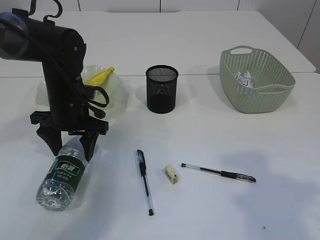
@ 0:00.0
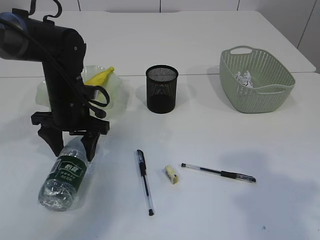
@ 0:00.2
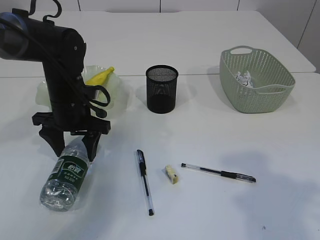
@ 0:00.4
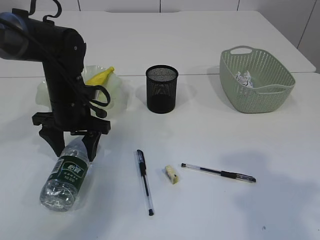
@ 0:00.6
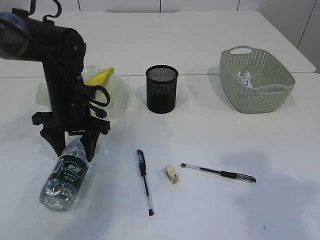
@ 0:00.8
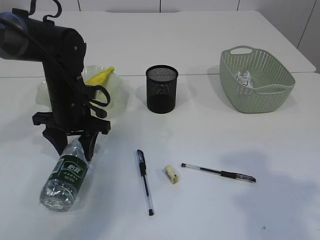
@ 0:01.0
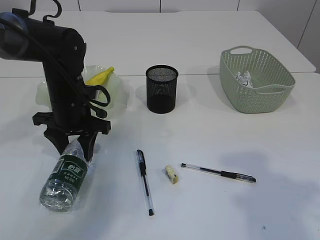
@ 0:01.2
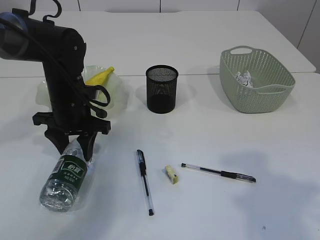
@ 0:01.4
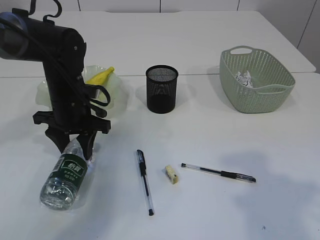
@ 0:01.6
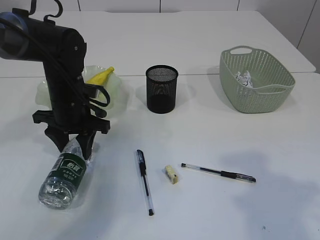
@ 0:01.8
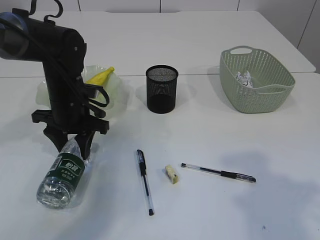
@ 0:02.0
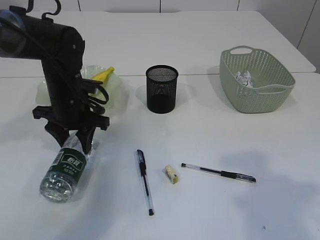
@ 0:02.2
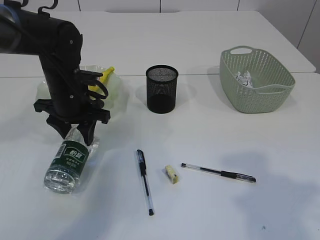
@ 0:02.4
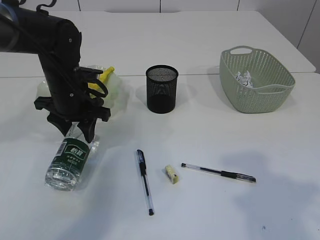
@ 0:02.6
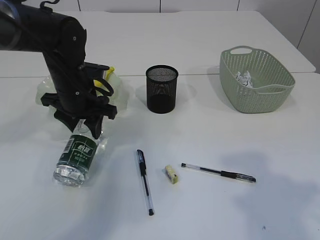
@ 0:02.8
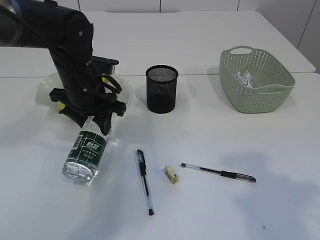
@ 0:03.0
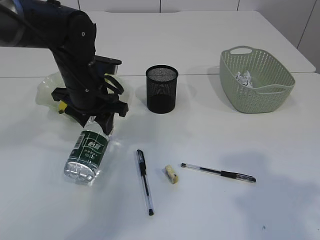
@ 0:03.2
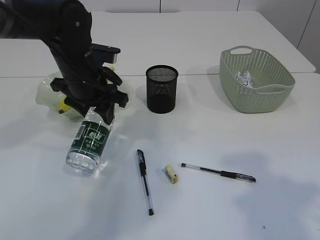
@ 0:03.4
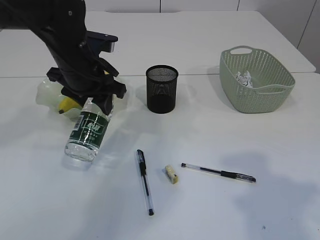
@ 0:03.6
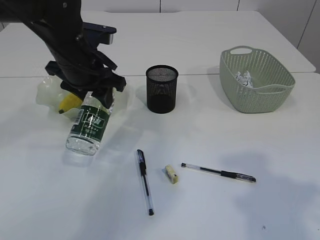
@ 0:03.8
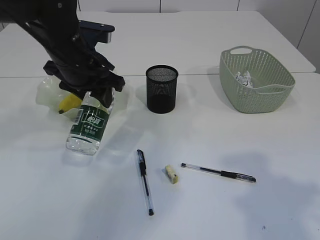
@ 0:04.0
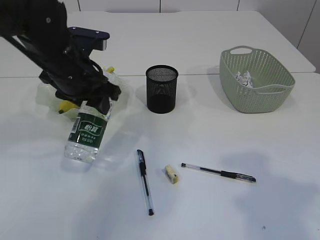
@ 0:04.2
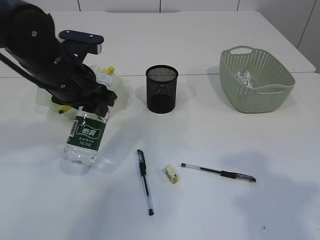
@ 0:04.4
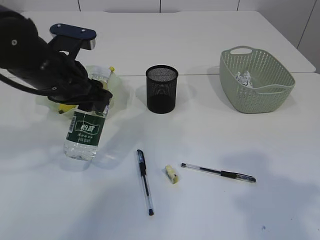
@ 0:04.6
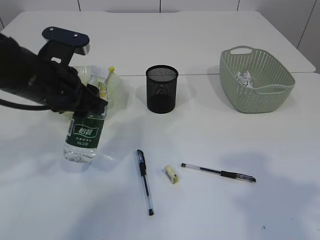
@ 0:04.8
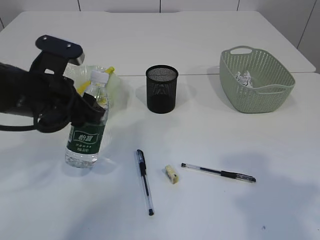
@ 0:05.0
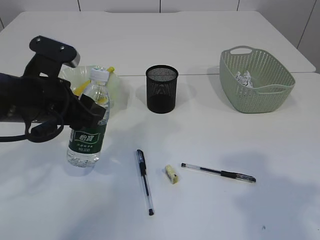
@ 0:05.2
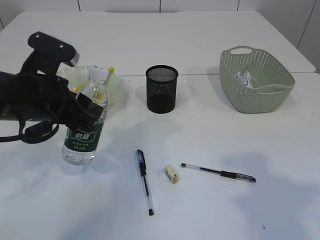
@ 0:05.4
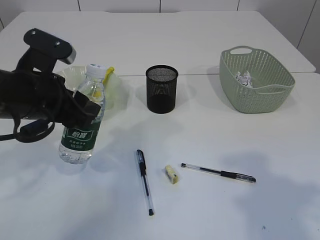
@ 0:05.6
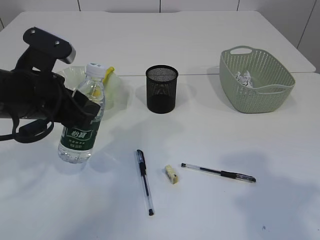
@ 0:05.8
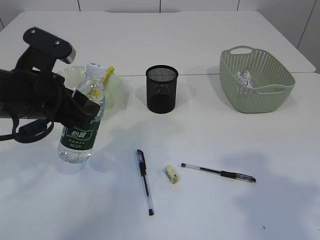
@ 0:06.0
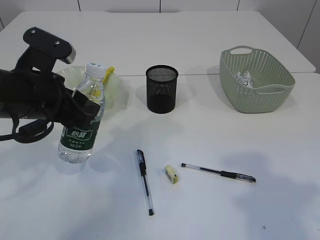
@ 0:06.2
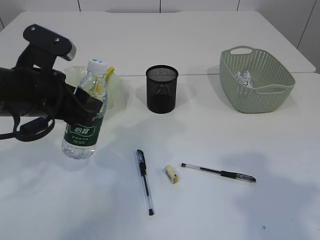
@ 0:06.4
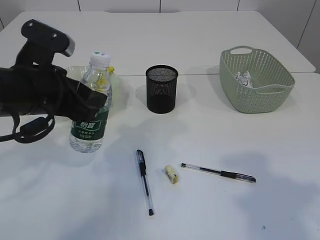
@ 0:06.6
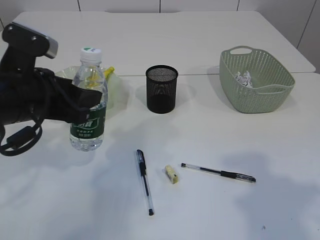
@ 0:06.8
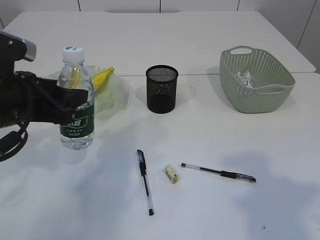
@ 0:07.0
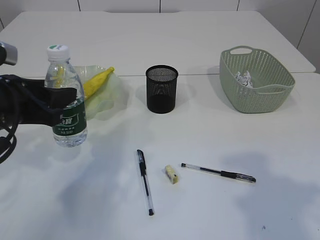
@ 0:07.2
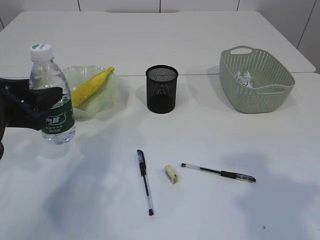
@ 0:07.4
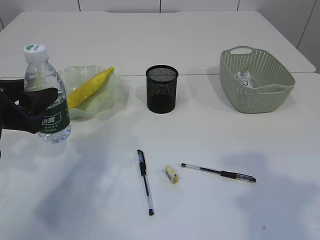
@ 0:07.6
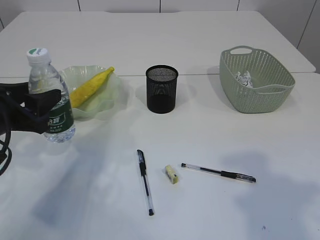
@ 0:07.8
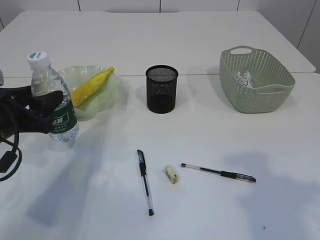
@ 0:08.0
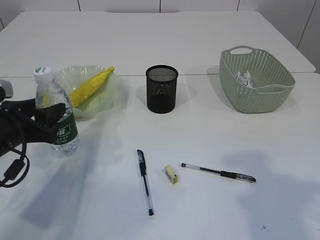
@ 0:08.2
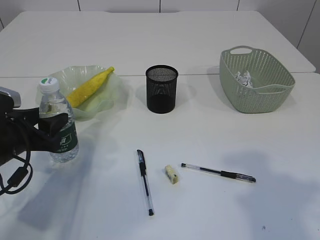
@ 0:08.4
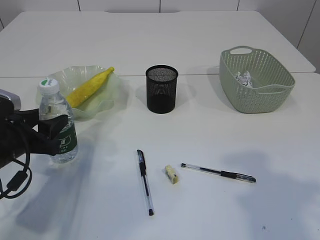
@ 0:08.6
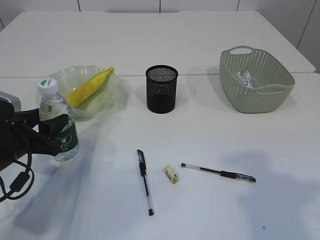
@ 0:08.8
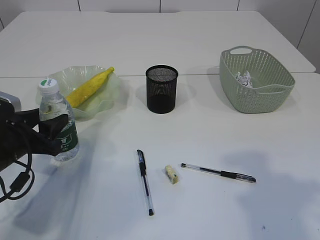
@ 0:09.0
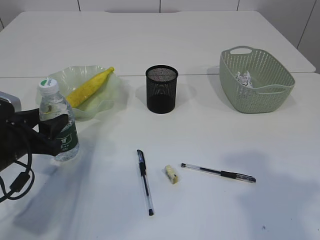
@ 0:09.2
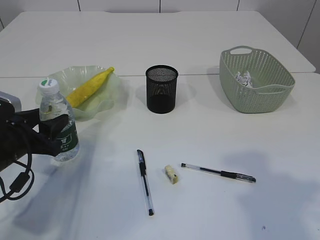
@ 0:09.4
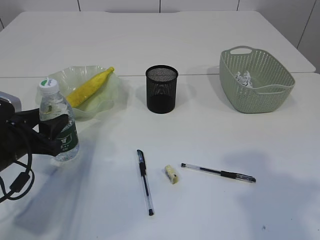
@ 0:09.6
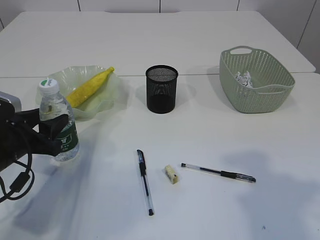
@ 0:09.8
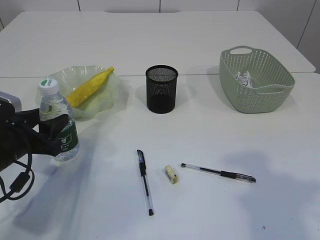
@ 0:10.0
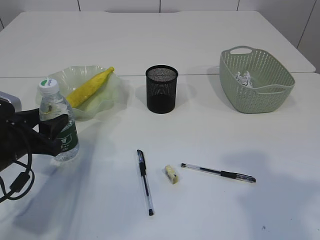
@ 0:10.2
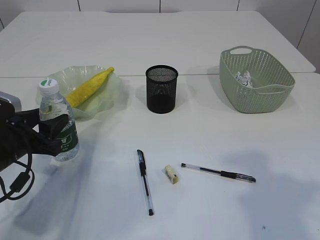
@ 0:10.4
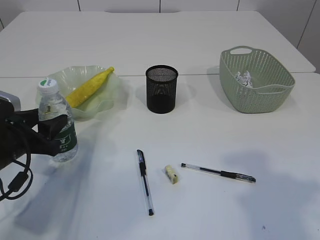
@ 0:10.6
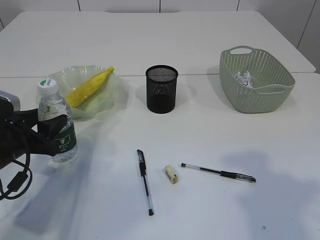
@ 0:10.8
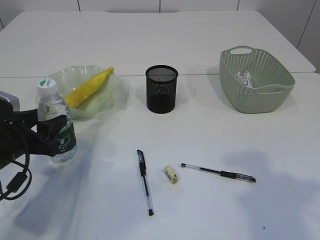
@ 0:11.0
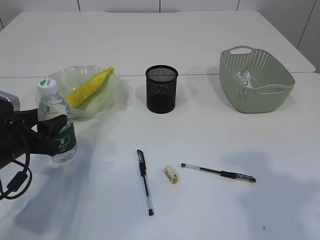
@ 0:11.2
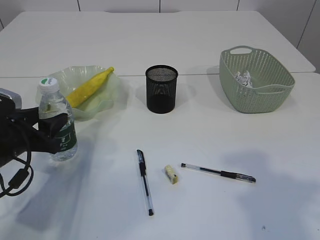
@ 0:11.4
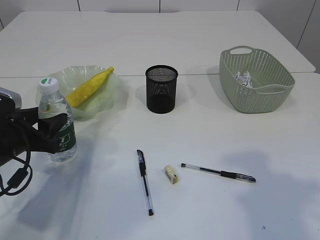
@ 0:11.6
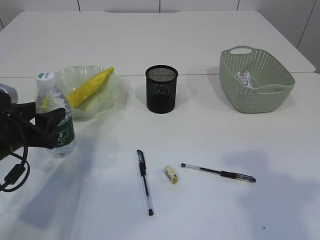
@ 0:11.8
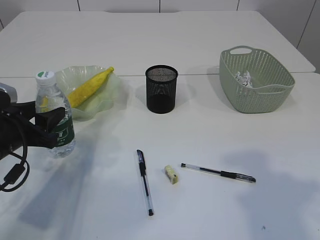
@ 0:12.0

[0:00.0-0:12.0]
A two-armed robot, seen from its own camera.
Step, 0:00.0 to 0:03.0: Pick up the bottle with the left arm.
0:00.0 to 0:01.6: The left gripper closes.
0:01.6 to 0:03.0: The grippers move only a little.
0:03.0 to 0:04.4: The left gripper shifts by about 5 cm.
0:04.4 to 0:06.0: The left gripper is displaced backward by roughly 5 cm.
0:06.0 to 0:07.6: The left gripper goes some 5 cm to the left.
0:07.6 to 0:09.0: The left gripper heads downward, covering some 10 cm.
0:09.0 to 0:10.4: The two grippers keep their place.
0:10.4 to 0:12.0: The grippers make only small movements.

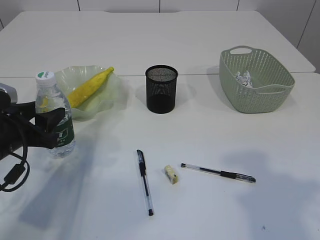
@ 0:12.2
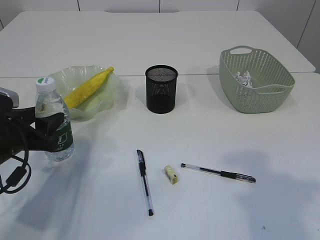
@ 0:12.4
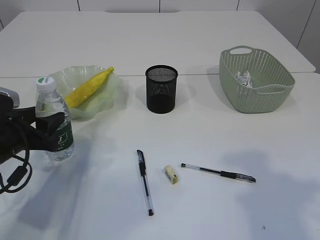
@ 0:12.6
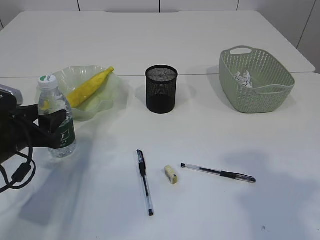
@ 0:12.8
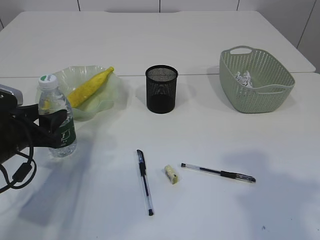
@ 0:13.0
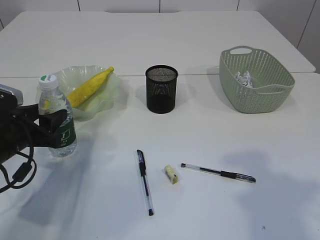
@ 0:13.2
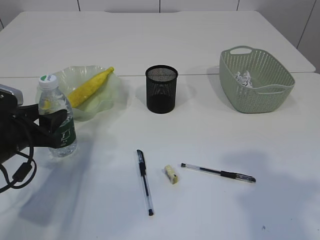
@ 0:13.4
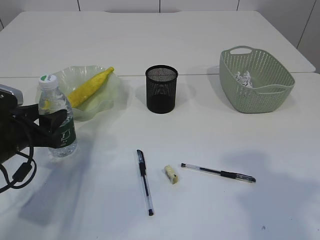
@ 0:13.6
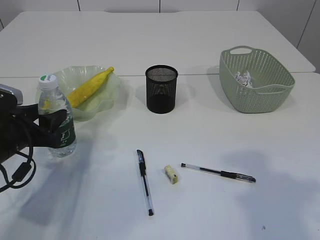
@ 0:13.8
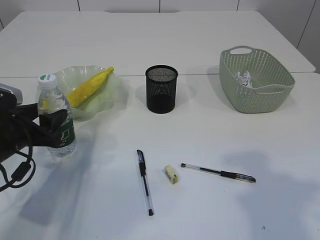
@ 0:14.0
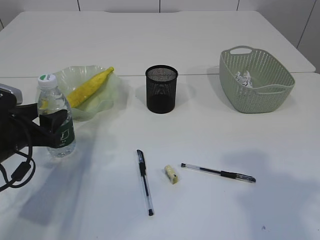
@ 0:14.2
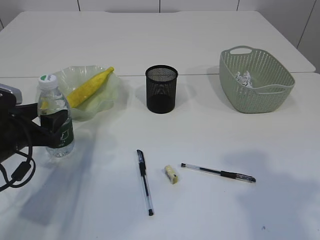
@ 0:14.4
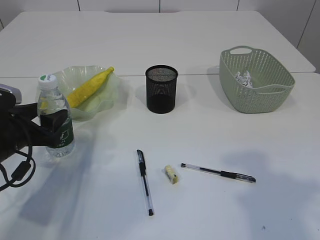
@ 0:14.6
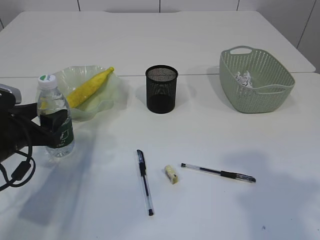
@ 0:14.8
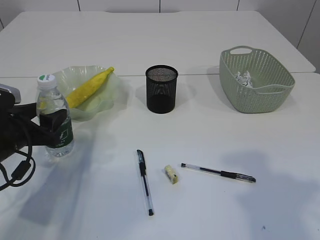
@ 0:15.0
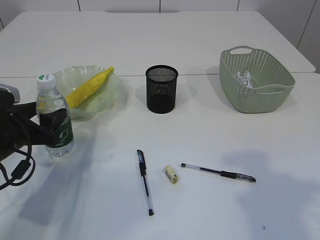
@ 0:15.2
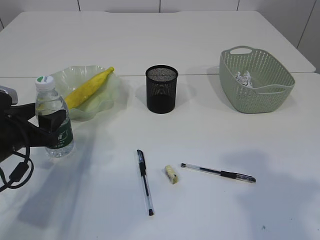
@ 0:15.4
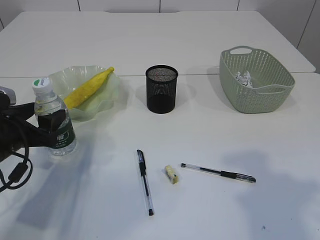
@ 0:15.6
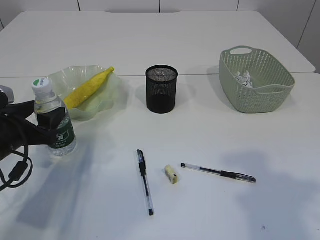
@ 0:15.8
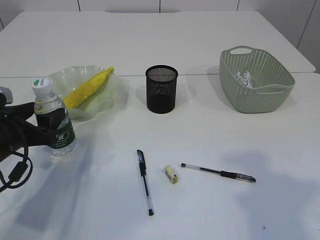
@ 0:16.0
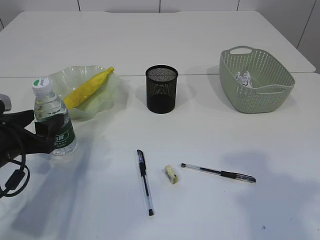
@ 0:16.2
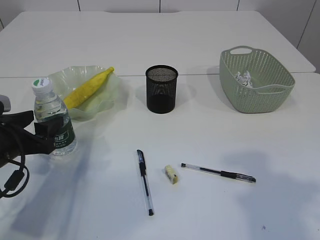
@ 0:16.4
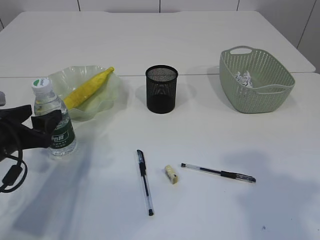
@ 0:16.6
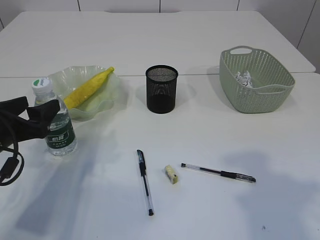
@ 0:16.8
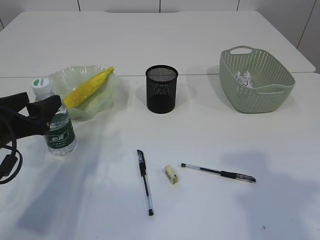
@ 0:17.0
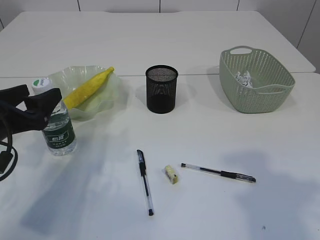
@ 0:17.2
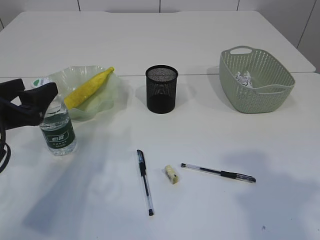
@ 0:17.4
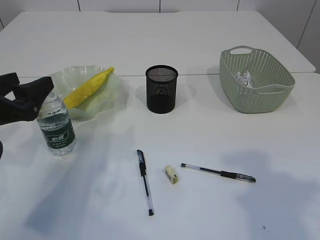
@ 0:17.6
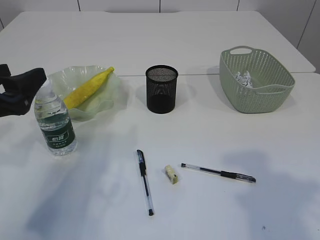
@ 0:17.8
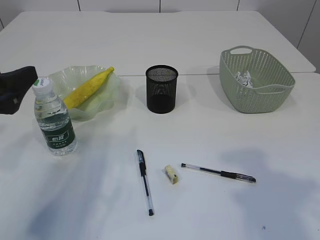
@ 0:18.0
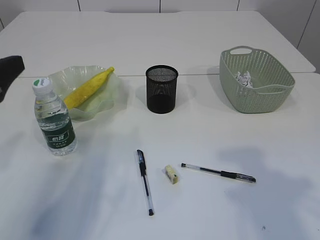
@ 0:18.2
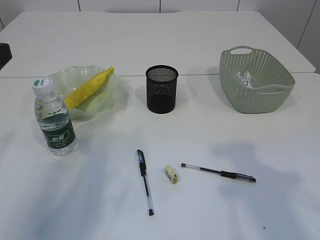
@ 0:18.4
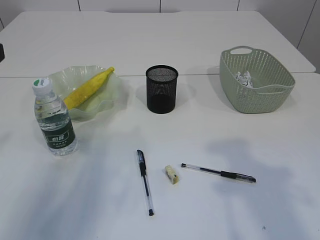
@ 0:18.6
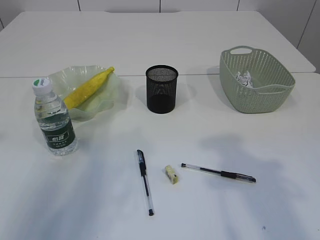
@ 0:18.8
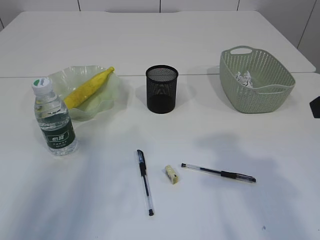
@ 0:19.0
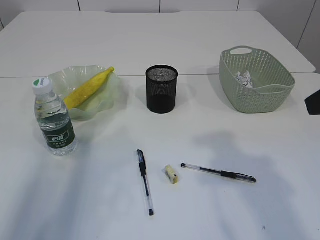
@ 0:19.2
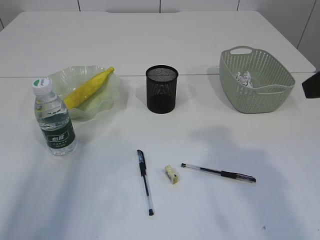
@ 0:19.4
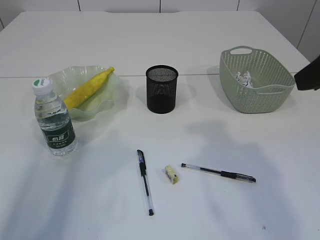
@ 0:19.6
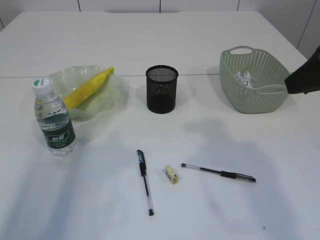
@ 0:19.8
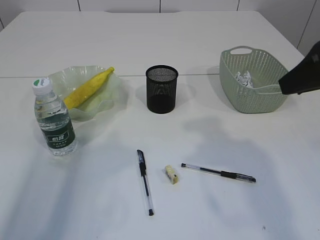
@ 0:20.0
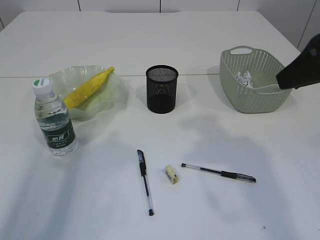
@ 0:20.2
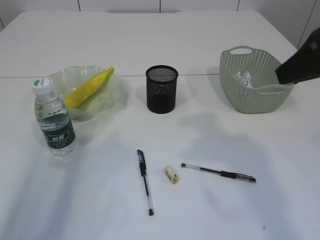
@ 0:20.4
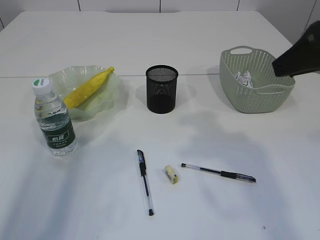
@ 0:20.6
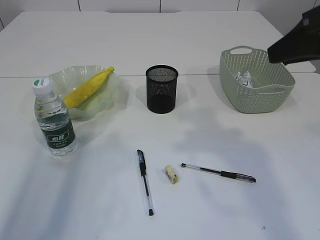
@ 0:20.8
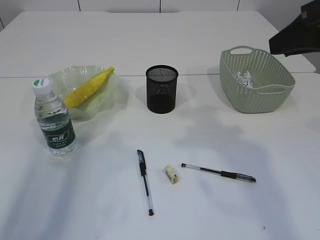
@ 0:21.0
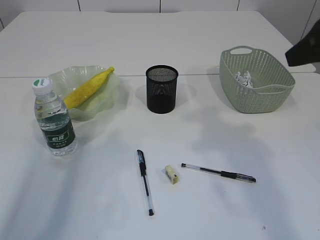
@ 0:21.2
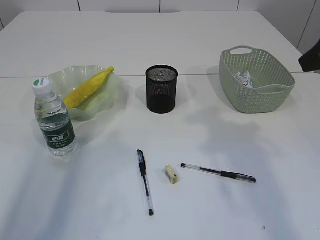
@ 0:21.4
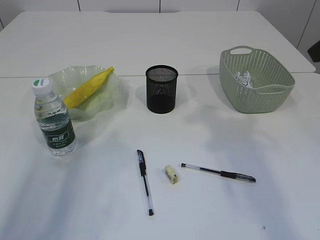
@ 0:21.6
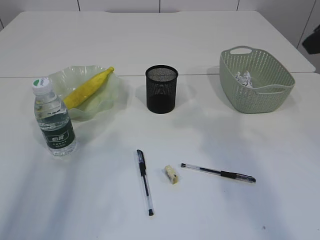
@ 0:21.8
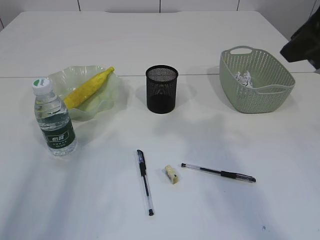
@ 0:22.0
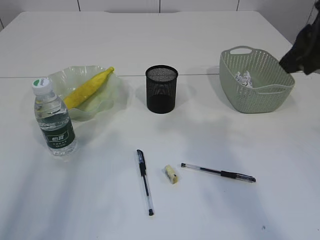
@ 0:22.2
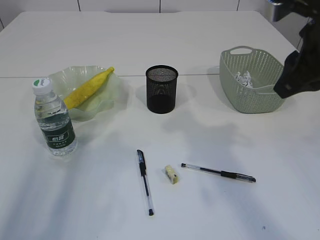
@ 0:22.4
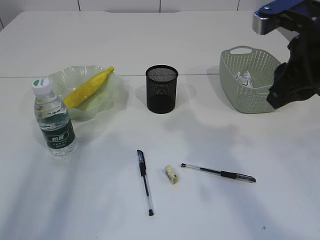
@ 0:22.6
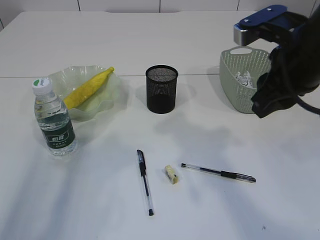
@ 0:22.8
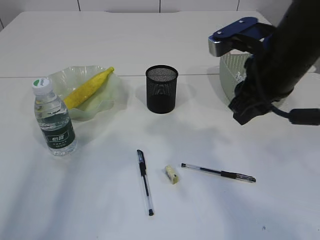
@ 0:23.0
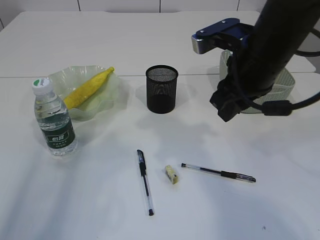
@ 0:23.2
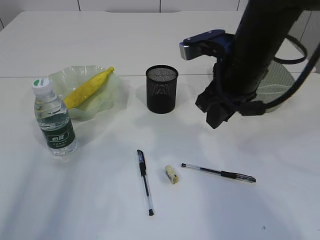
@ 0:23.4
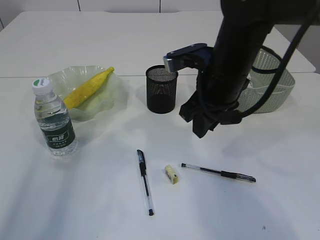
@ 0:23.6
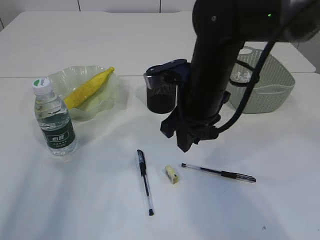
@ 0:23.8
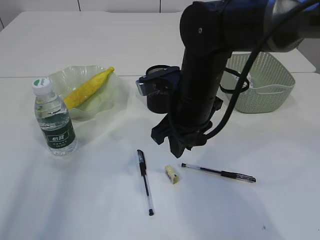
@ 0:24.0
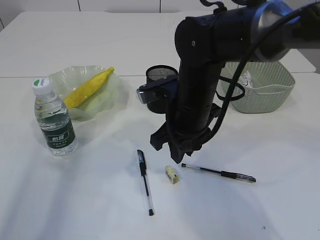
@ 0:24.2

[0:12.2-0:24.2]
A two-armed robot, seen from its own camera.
Step, 0:12.2 to 0:17.6: Place the bottle.
0:12.2 to 0:13.8: The grippers stay close to where they were, moving slightly.
0:13.8 to 0:15.2: The left gripper opens.
0:15.2 to 0:16.6: There are only small adjustments of the grippers.
0:16.6 to 0:18.2: The left gripper moves upward, approximately 10 cm.
0:18.2 to 0:19.8: The left gripper travels upward and backward by about 10 cm, while the right gripper goes about 10 cm forward.
0:19.8 to 0:21.2: The grippers move only a little.
0:21.2 to 0:22.6: The right gripper shifts by some 5 cm.
0:22.6 to 0:24.2: The right gripper shifts some 20 cm to the left and downward.
